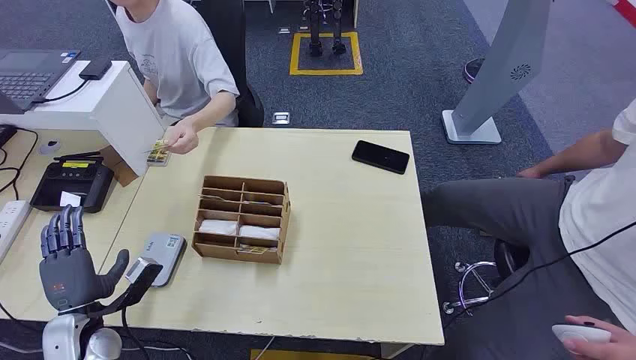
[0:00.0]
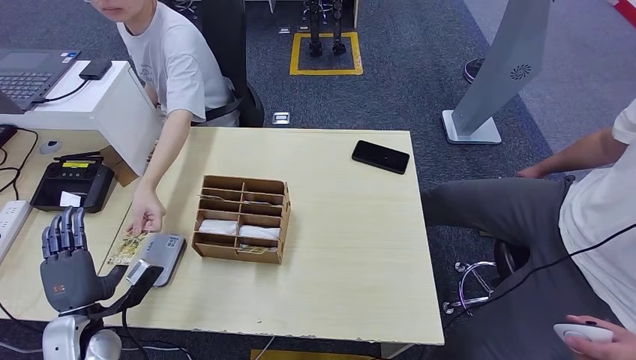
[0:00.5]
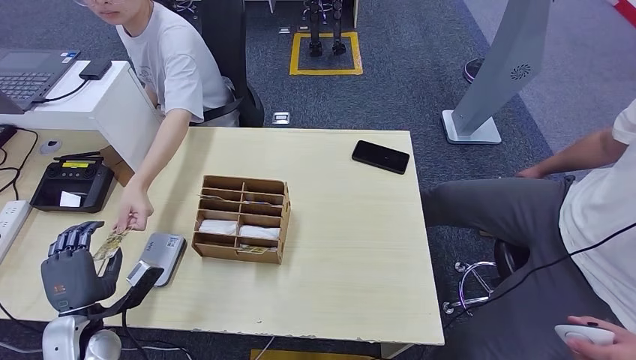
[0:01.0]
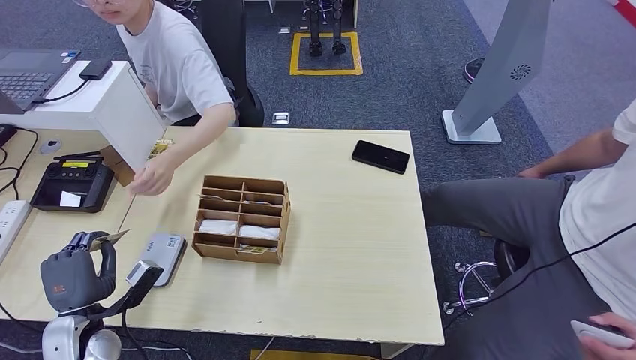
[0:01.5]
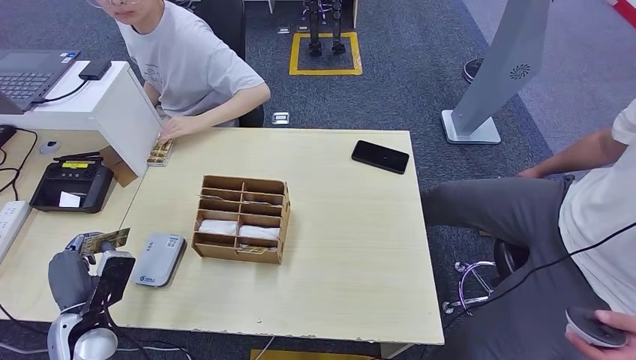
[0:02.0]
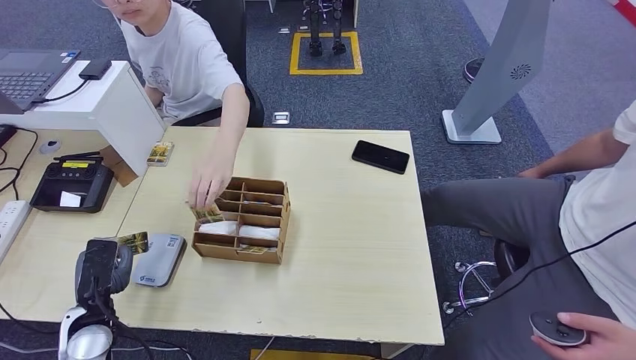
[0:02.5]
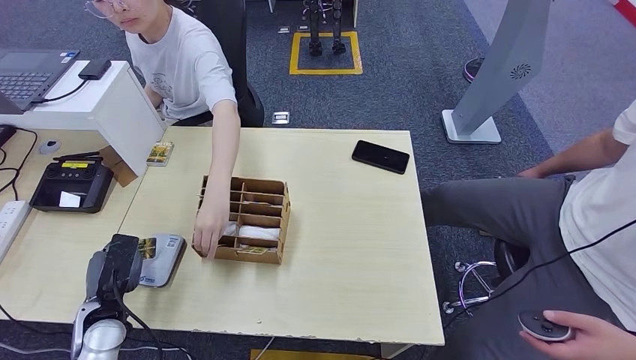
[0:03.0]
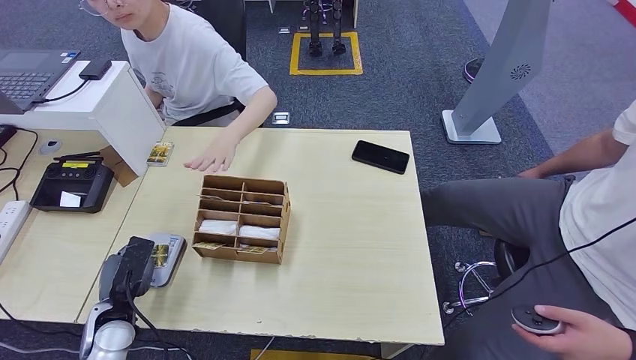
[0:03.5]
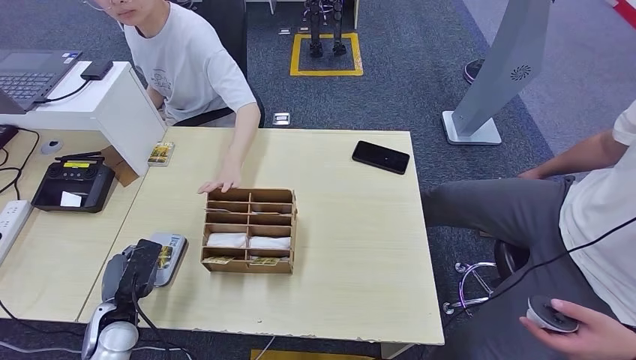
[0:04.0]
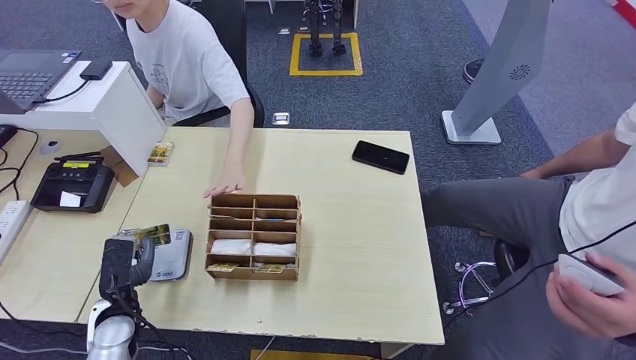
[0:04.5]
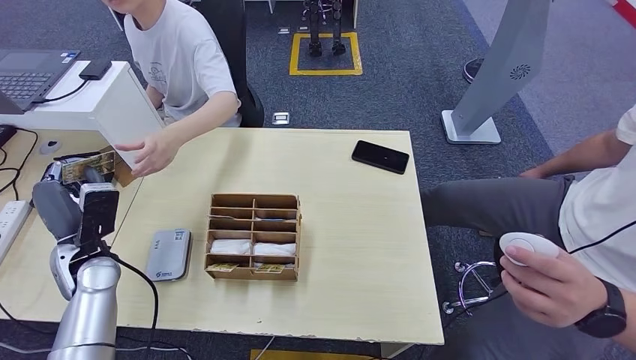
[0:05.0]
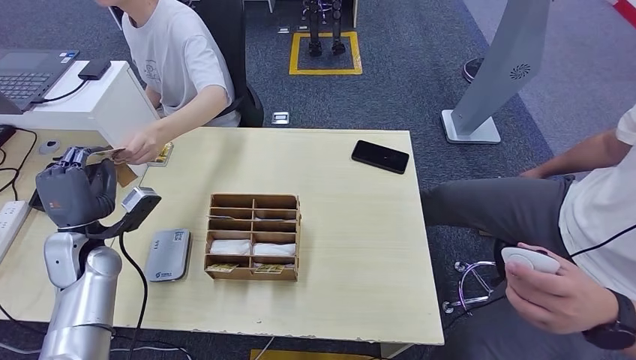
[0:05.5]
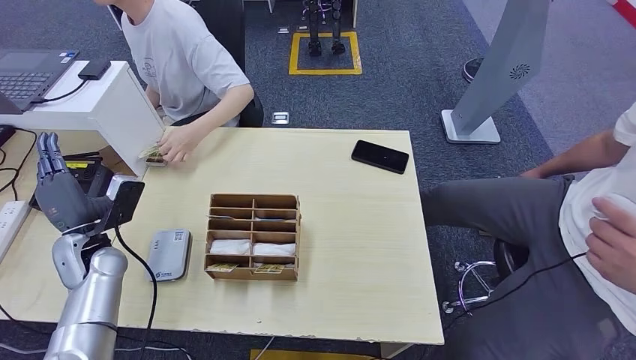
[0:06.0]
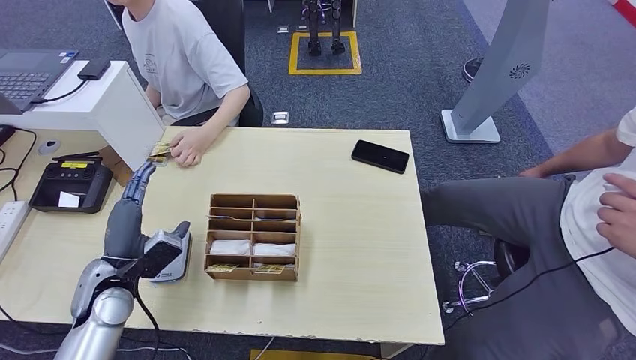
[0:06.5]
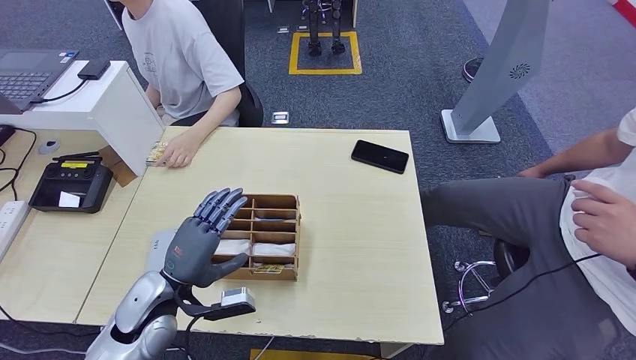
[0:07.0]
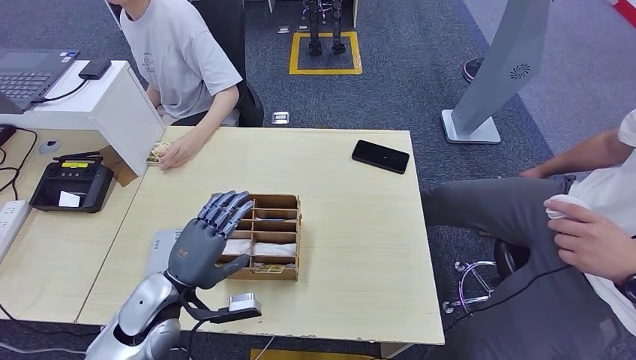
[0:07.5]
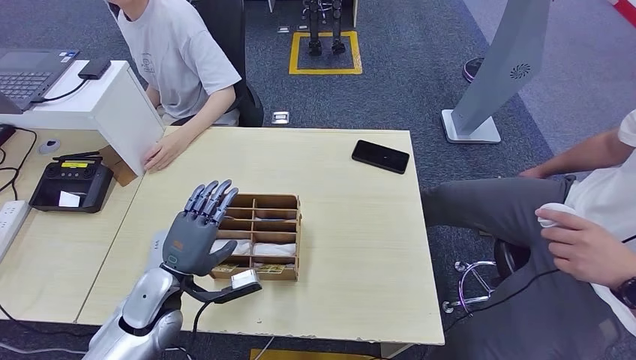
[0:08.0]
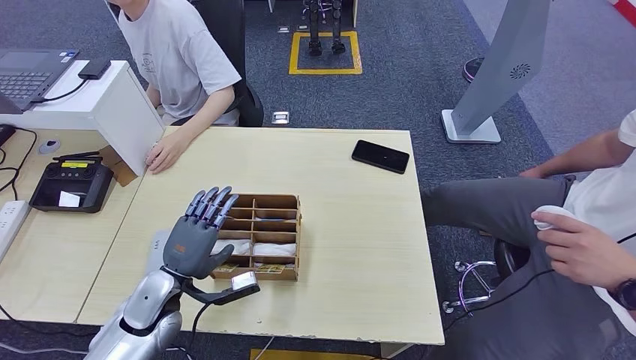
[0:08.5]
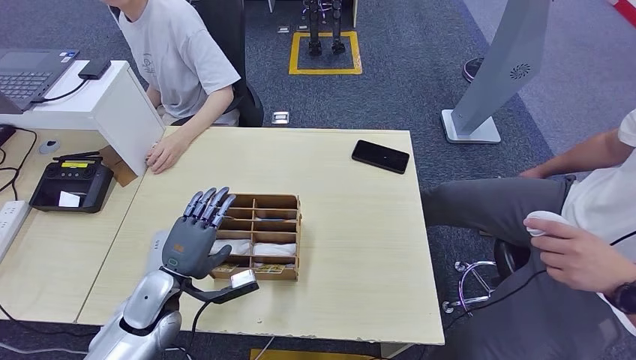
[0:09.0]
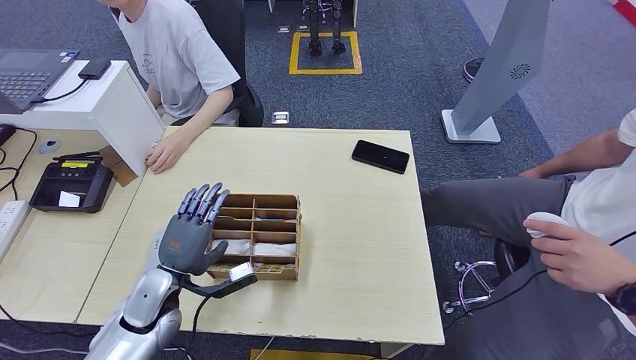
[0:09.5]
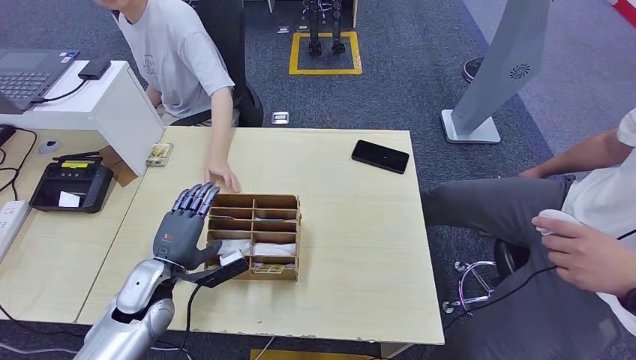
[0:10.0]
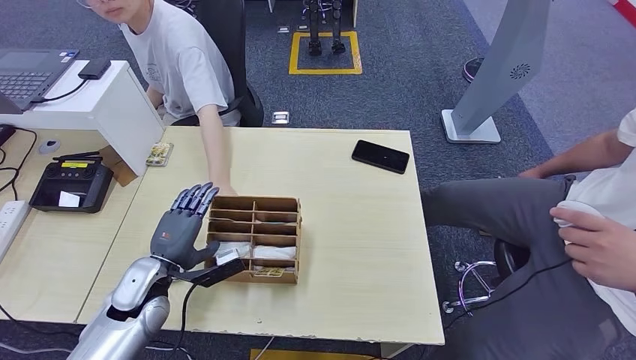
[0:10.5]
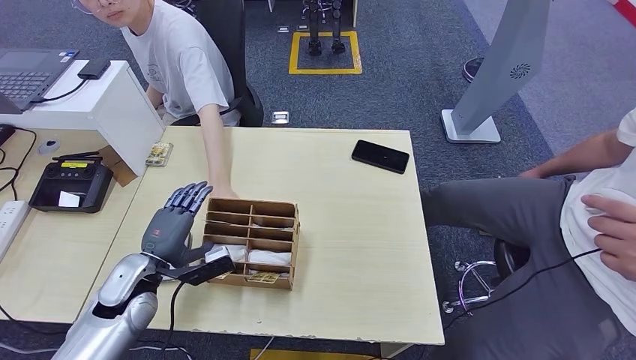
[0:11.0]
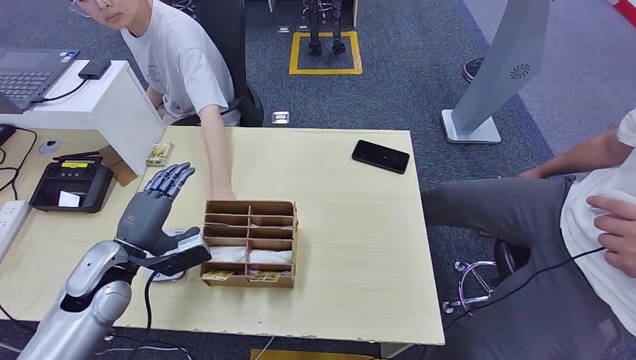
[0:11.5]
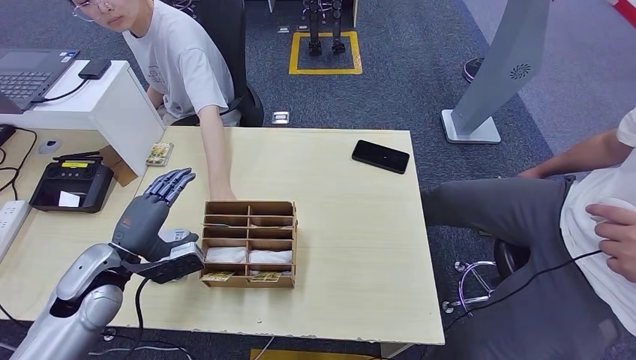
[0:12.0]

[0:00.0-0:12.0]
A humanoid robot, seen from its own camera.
Step, 0:00.0 to 0:02.0: Take the ID card from the person's hand.
Step, 0:03.0 to 0:04.0: Place the ID card on the card reader.
Step, 0:05.0 to 0:06.0: Hand the ID card to the person.
0:06.0 to 0:08.0: The left hand moves to the right and backward, some 15 cm.
0:08.0 to 0:10.0: The hands make only small movements.
0:10.0 to 0:12.0: The left hand shifts about 10 cm to the left and upward.

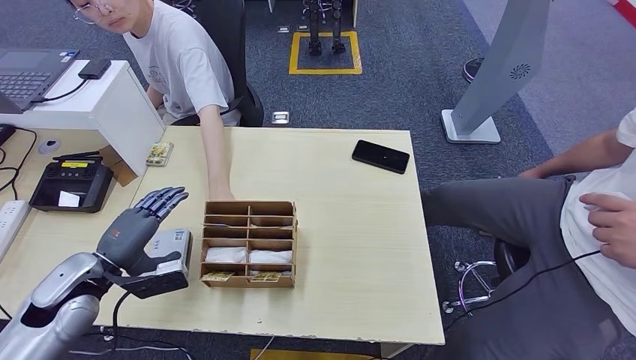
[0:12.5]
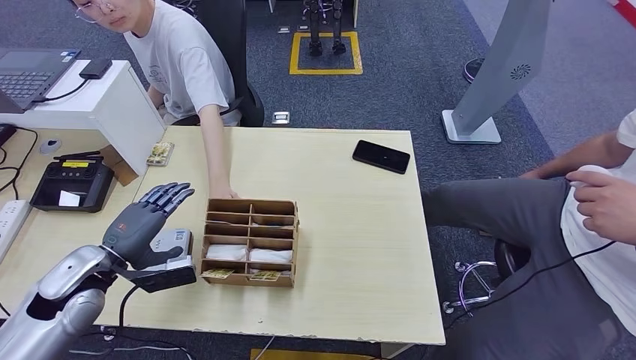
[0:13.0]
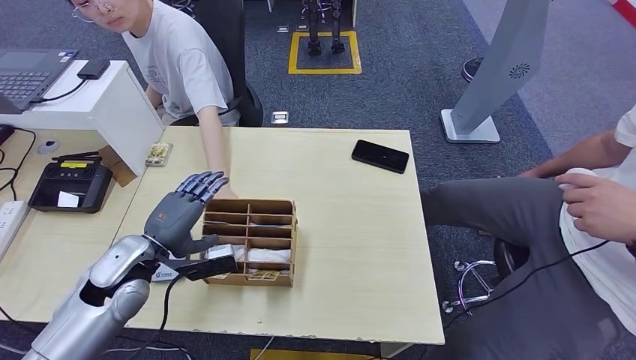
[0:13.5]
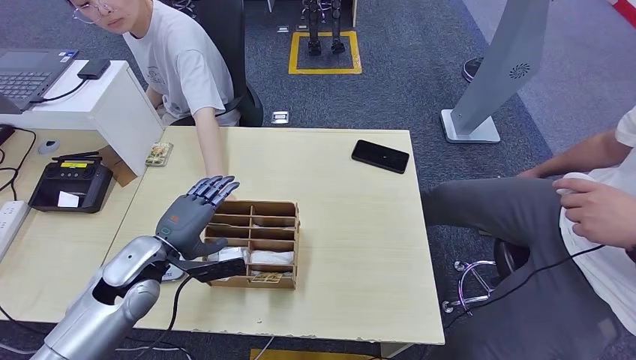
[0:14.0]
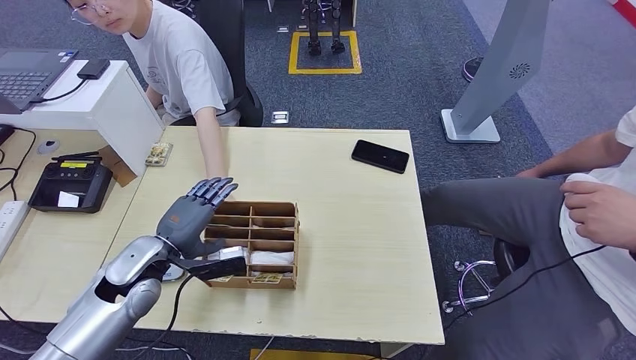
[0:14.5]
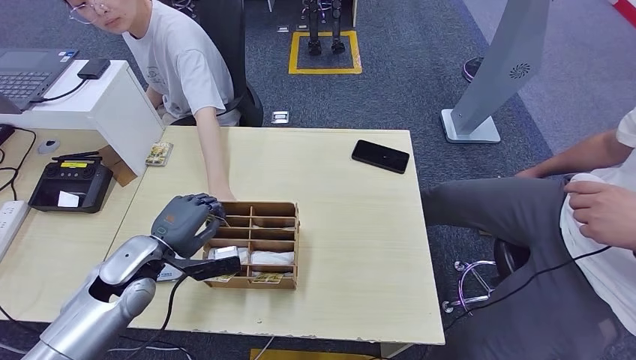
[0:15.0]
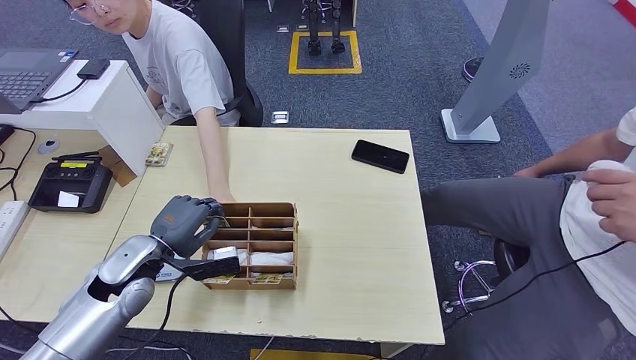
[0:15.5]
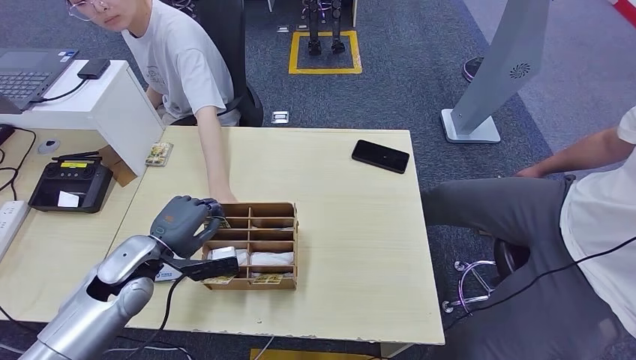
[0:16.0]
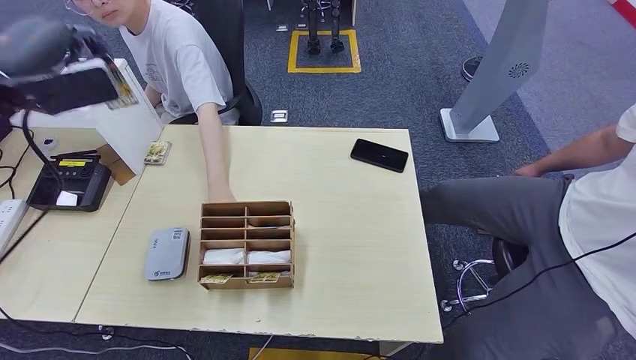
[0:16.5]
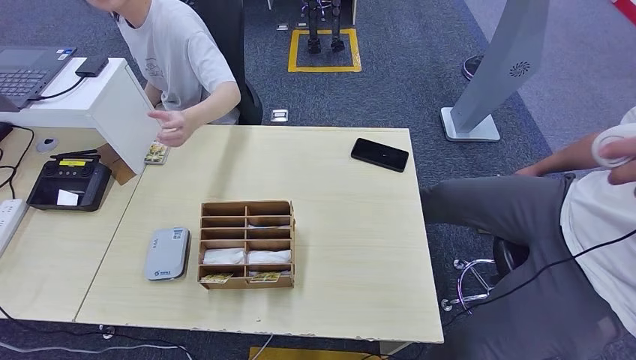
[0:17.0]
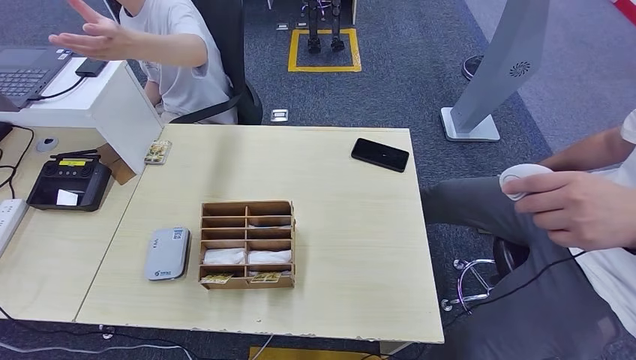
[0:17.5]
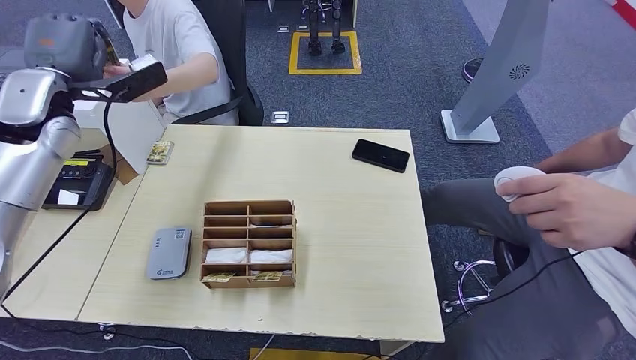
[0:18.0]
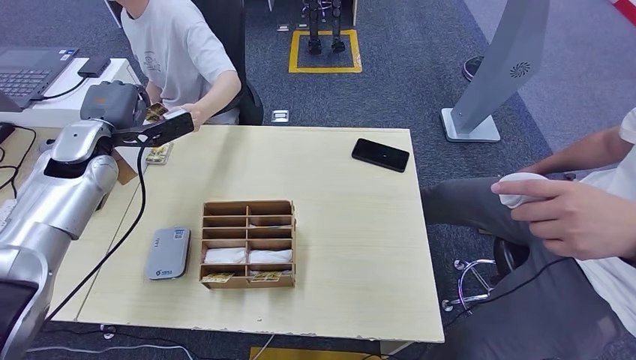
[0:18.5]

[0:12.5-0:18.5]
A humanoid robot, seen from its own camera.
Step, 0:15.0 to 0:16.5: Pick up the room key from the key card box.
Step, 0:17.5 to 0:18.5: Hand the room key to the person.
0:12.5 to 0:14.5: The left hand moves to the right, approximately 10 cm.
0:14.5 to 0:16.5: The left hand heads upward and to the left, covering about 30 cm.
